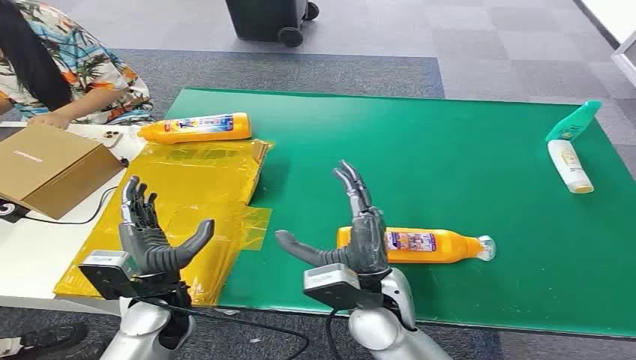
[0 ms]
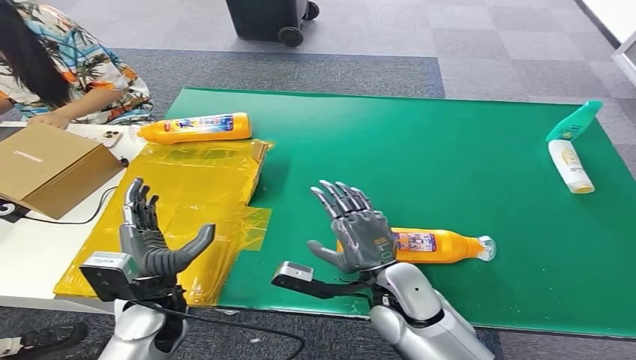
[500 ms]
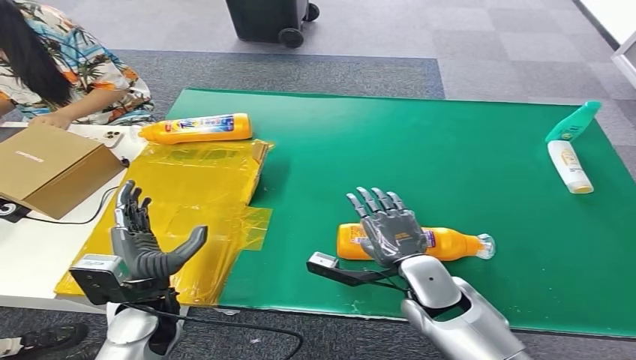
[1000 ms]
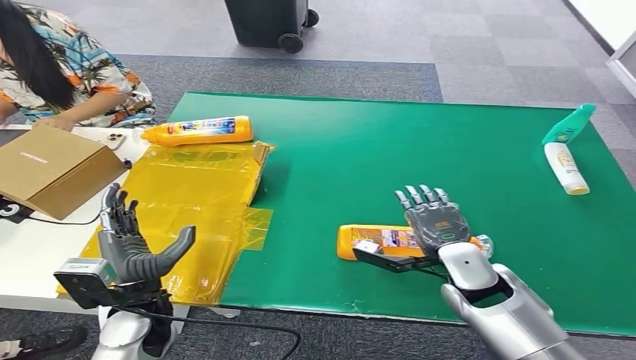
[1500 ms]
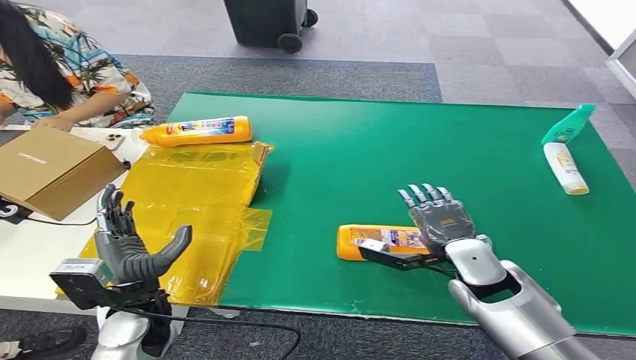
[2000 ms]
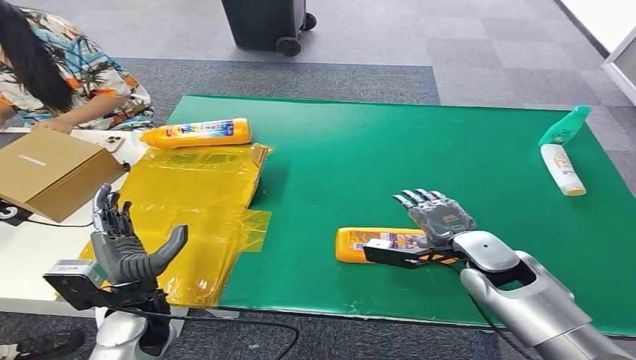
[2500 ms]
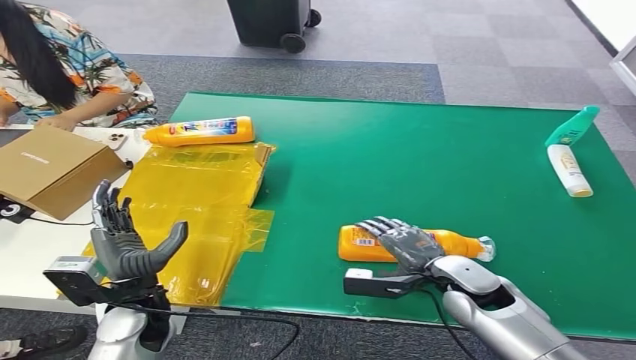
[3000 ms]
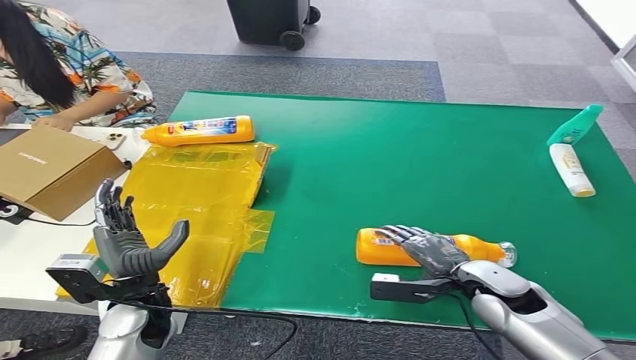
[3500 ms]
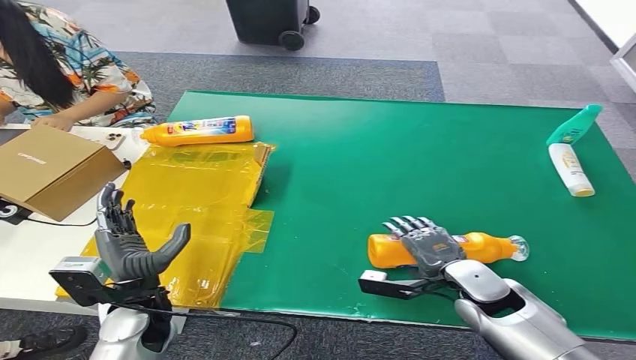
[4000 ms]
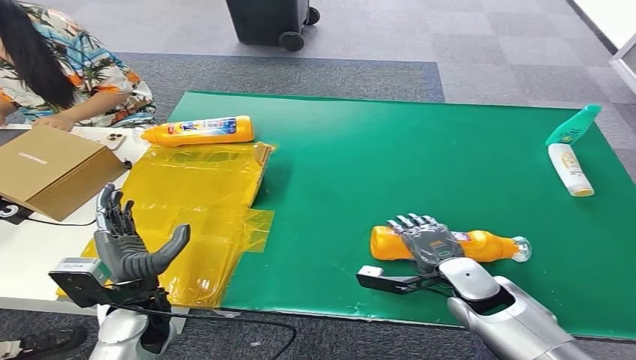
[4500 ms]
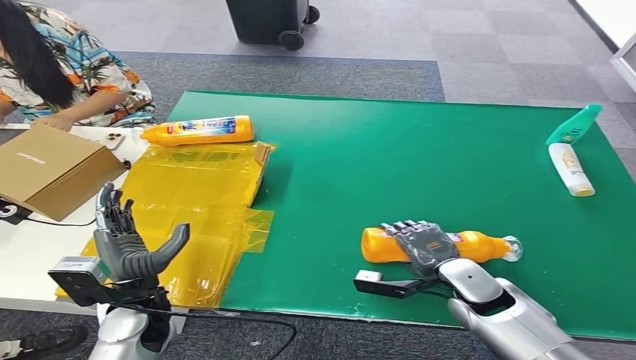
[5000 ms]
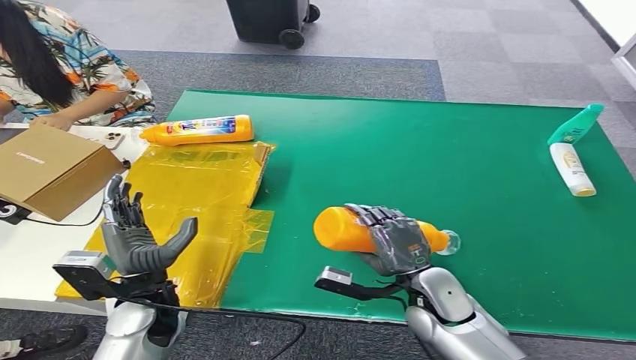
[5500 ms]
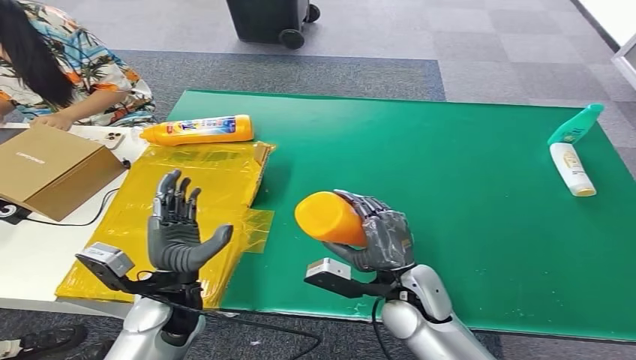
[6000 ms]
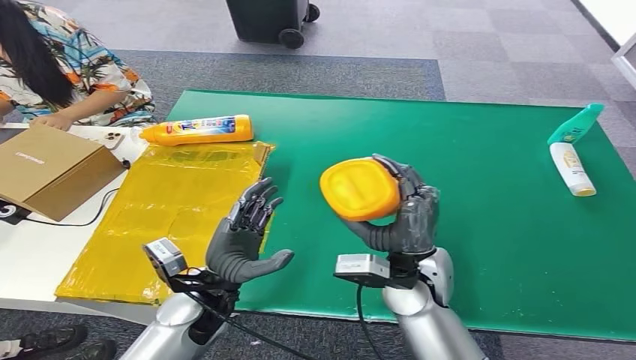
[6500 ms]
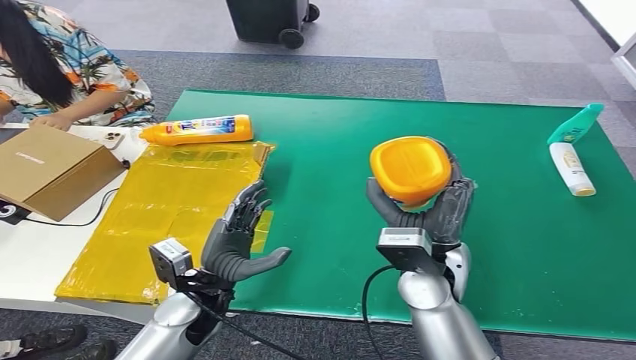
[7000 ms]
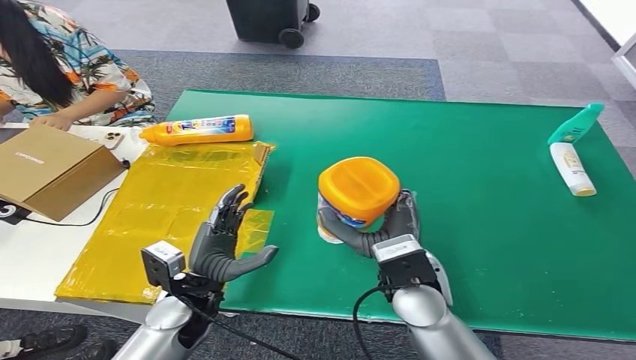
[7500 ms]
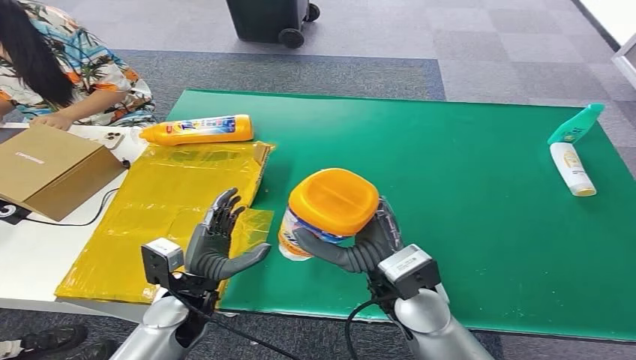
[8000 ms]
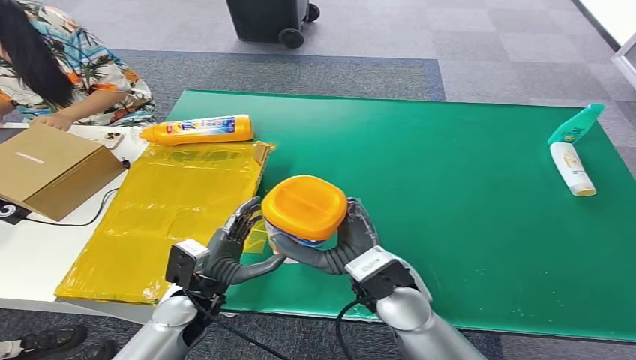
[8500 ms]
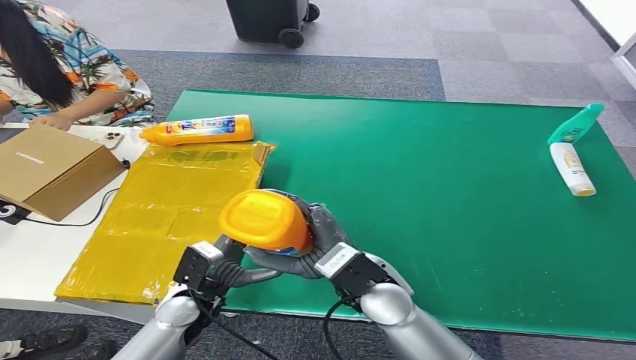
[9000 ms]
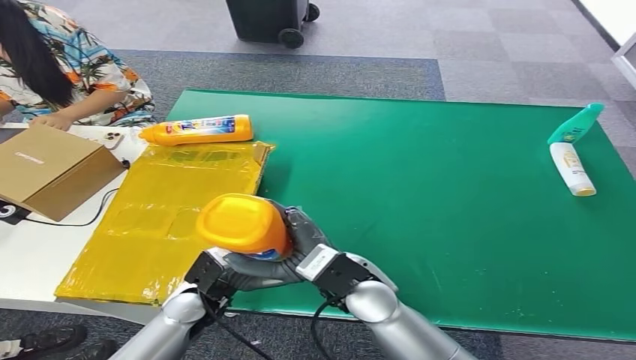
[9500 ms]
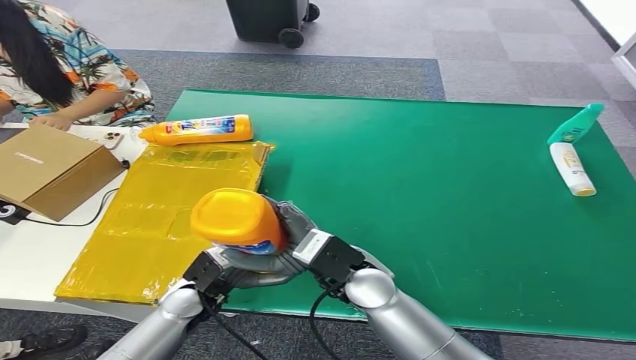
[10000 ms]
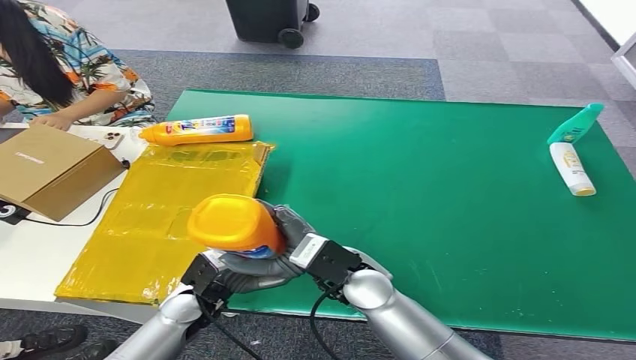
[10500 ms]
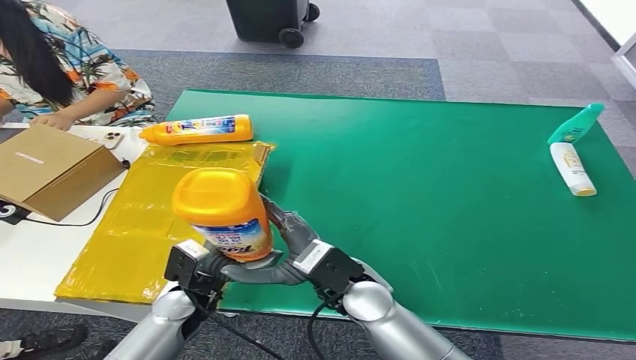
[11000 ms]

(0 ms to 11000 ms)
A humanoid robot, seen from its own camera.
Step, 0 ms - 6000 ms: Pick up the bottle from the table.
Step, 6500 ms - 11000 ms: Turn the bottle to the front side.
3500 ms - 5500 ms: The right hand travels to the left by some 10 cm.
5500 ms - 7500 ms: The left hand shifts by about 5 cm. The right hand is displaced upward and to the left by approximately 10 cm.
7500 ms - 9000 ms: The right hand moves to the left, some 5 cm.
9000 ms - 11000 ms: There are only small adjustments of the hands.
